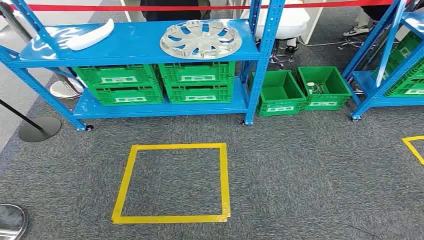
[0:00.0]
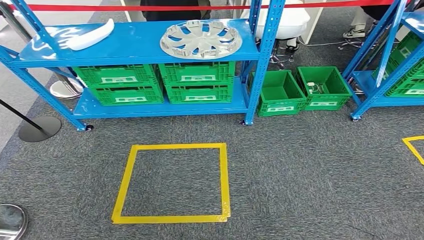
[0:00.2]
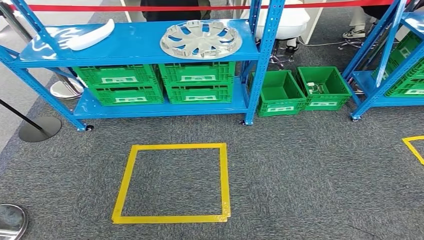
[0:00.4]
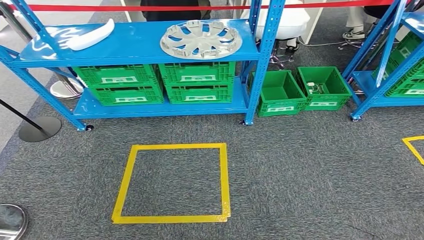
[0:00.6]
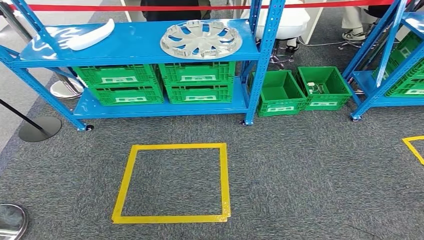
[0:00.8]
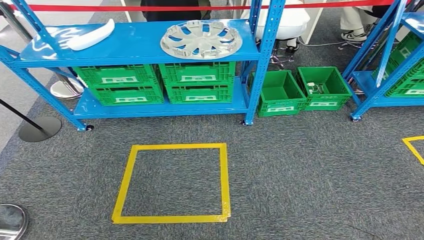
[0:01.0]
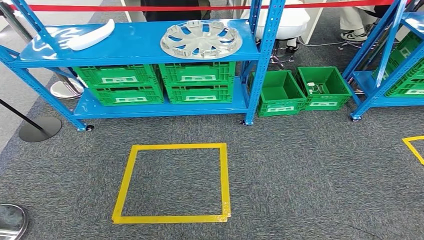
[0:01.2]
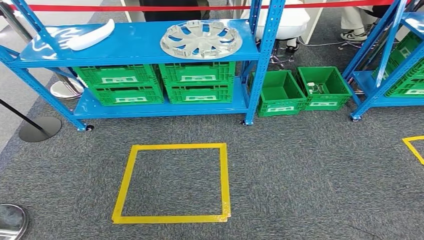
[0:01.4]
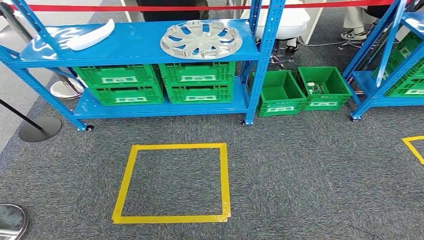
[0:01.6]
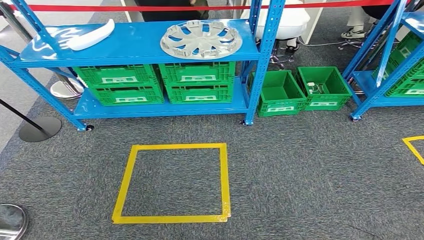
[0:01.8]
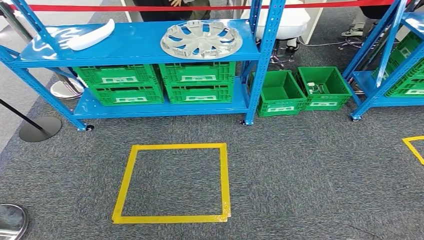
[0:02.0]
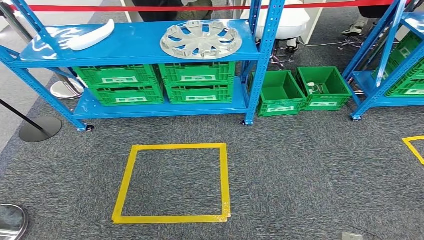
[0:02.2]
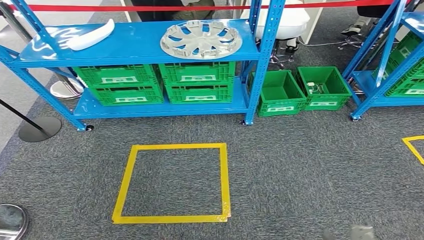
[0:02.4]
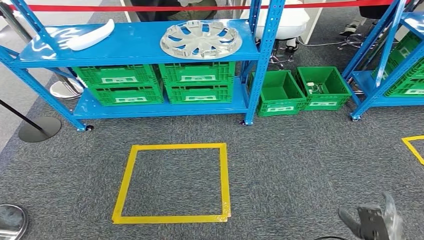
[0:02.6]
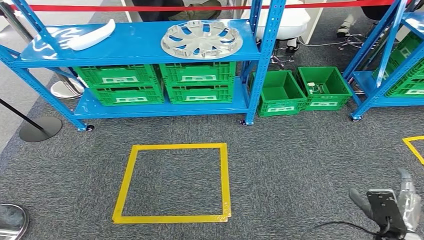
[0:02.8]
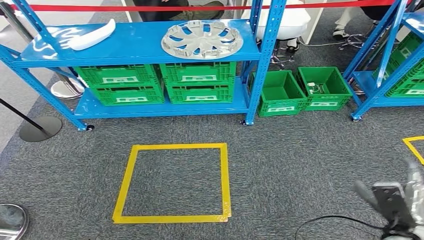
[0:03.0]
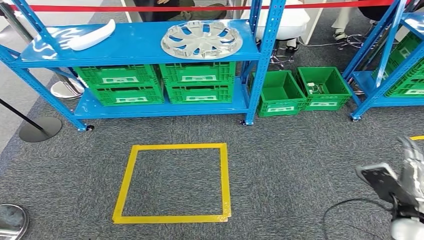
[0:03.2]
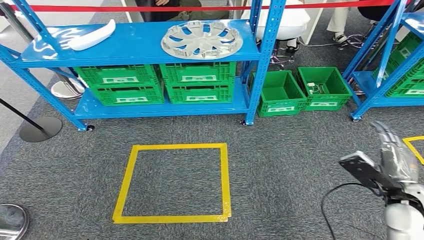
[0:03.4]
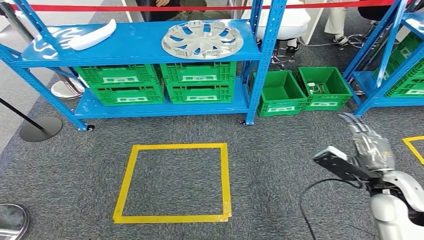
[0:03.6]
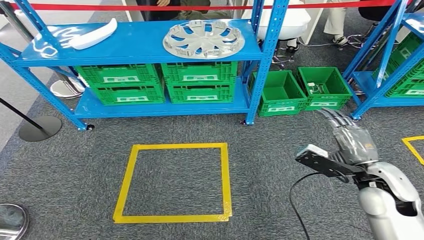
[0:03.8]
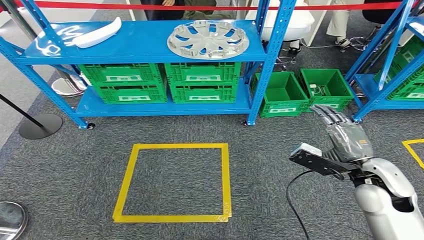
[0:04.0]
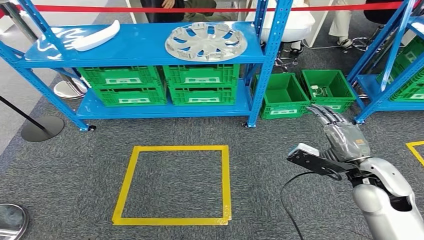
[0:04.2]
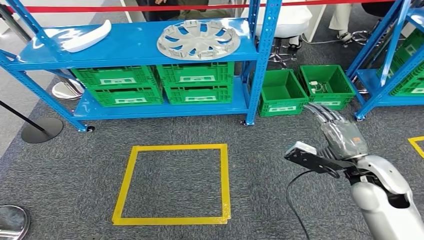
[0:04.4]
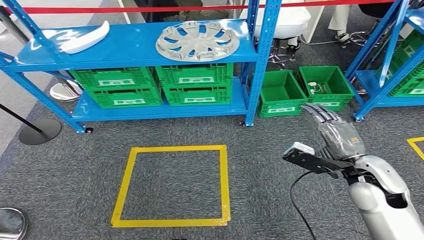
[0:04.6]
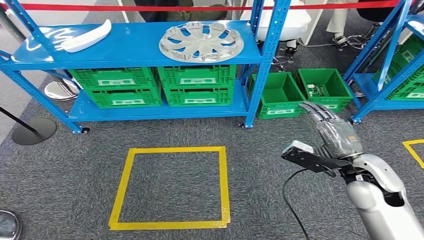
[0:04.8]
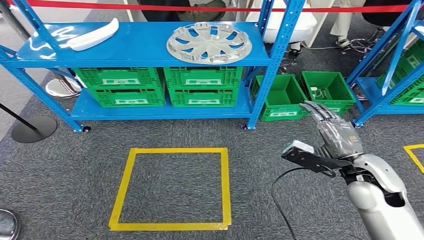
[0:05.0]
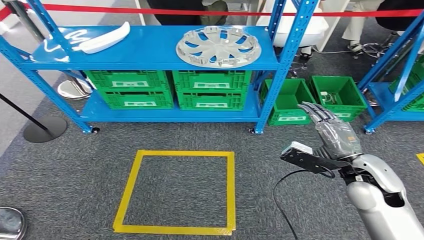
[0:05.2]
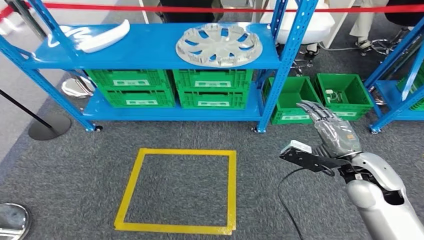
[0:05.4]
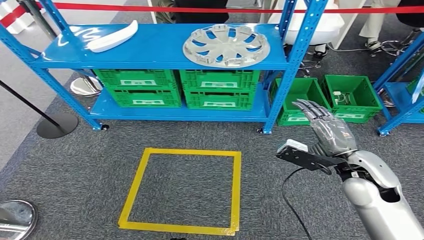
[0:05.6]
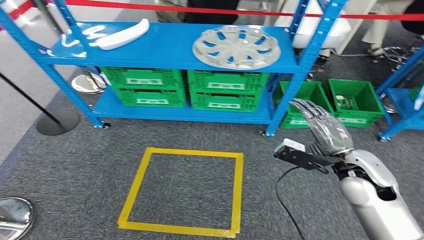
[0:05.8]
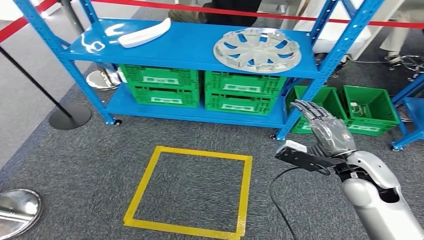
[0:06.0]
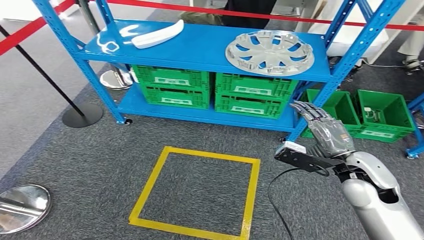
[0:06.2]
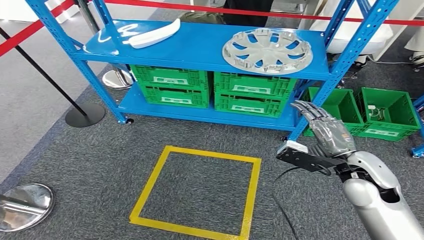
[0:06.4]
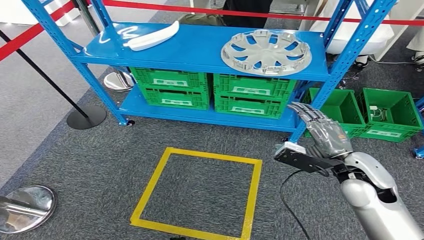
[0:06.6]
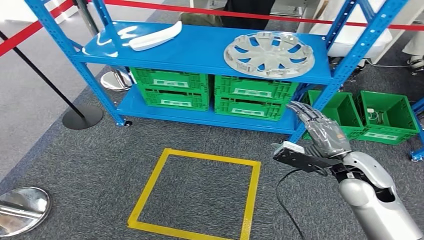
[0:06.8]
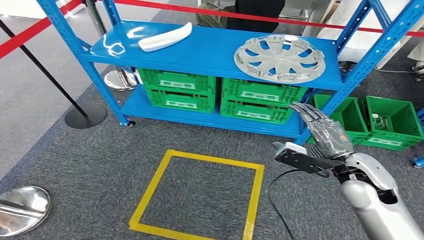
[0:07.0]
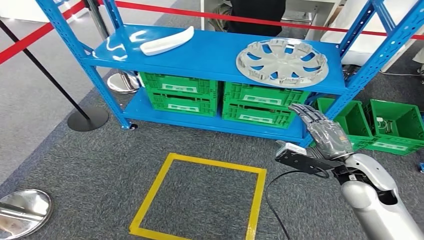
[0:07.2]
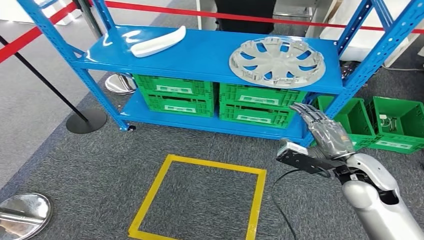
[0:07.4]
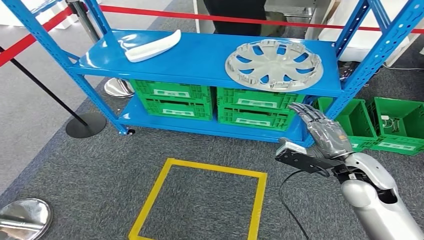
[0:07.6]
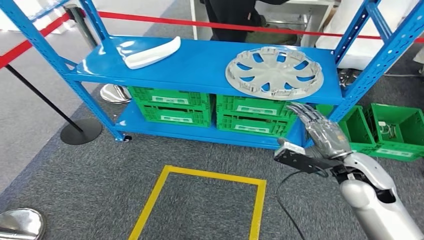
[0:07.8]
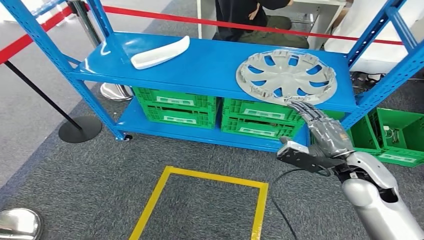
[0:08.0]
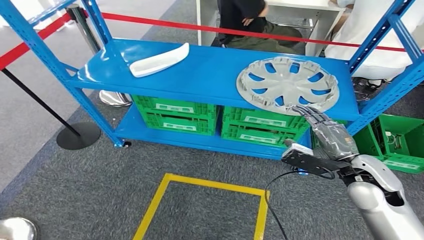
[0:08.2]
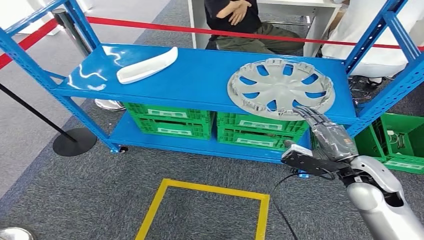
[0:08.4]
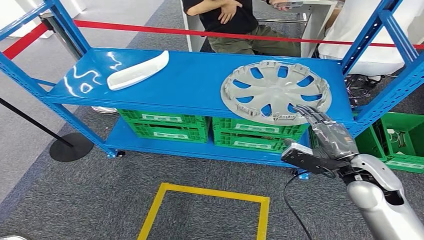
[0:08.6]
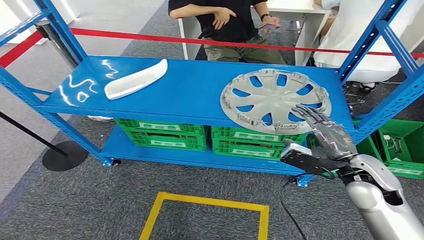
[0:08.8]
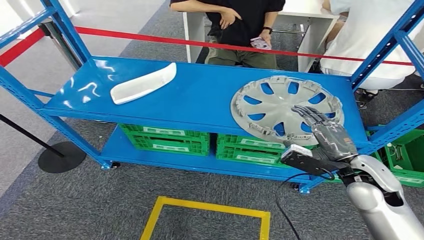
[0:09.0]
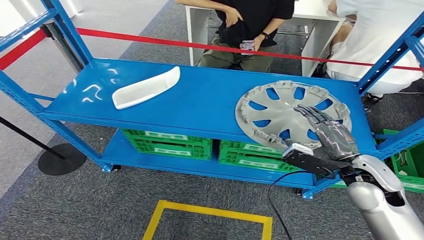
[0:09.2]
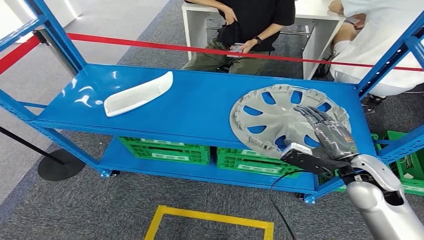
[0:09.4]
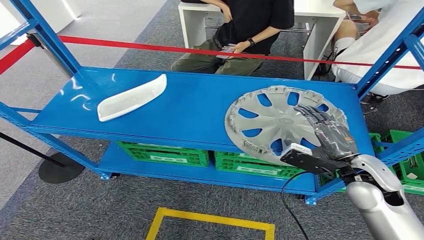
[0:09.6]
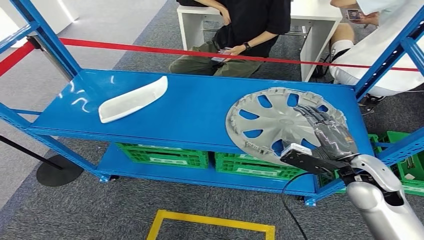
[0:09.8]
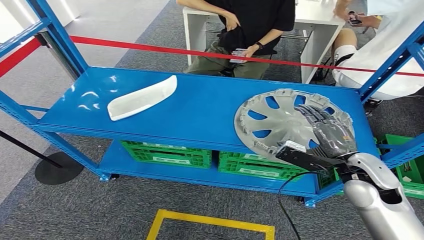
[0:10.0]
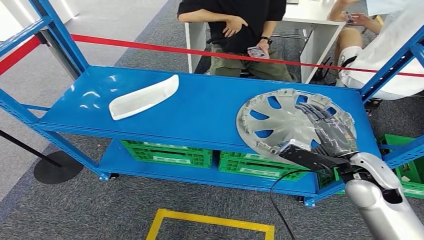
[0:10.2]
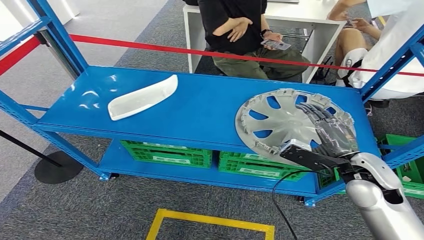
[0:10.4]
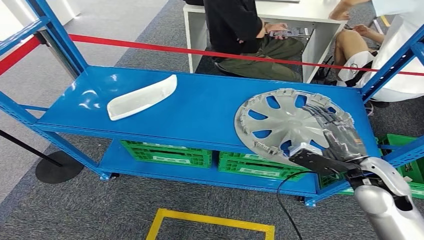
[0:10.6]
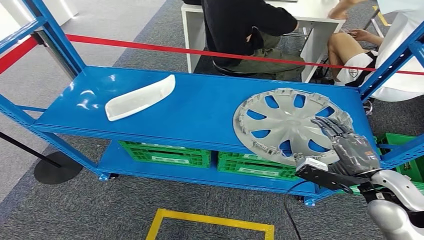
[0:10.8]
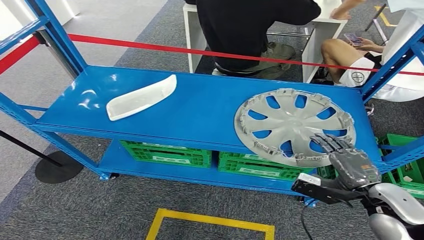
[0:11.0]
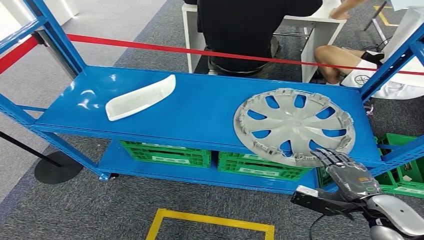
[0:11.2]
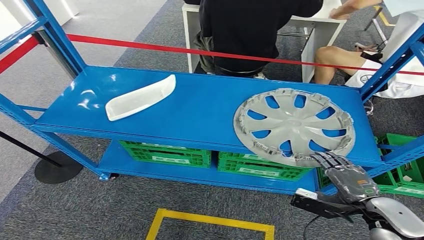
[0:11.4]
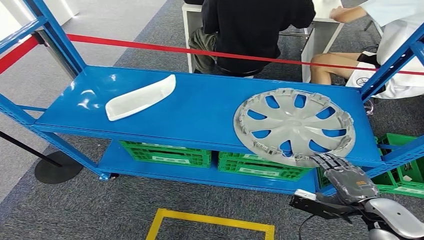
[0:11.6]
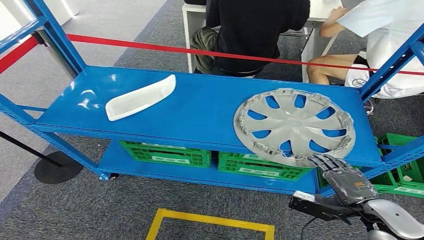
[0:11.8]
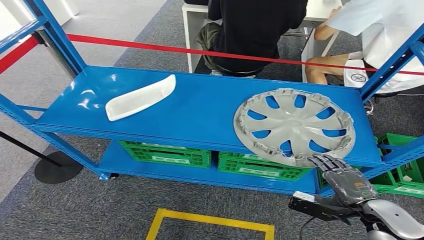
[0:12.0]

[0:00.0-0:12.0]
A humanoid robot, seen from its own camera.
0:01.6 to 0:03.0: The right hand is displaced upward and forward by approximately 25 cm.

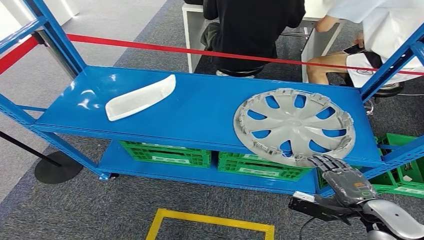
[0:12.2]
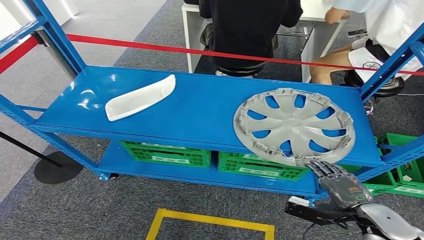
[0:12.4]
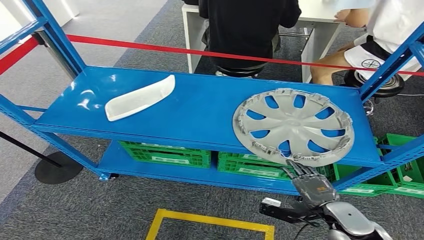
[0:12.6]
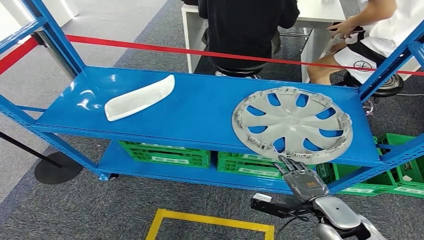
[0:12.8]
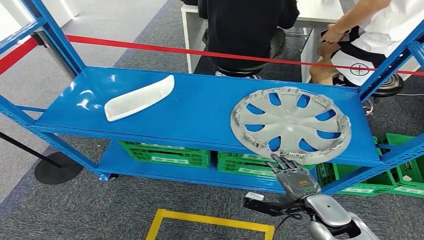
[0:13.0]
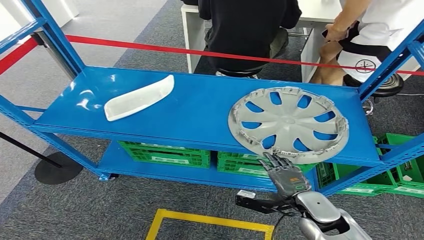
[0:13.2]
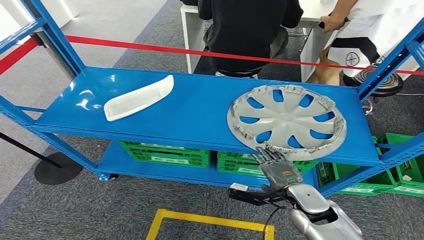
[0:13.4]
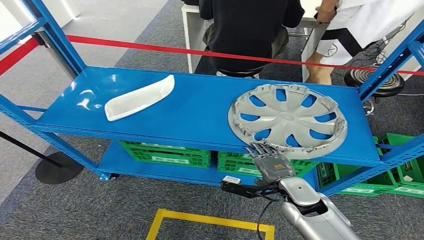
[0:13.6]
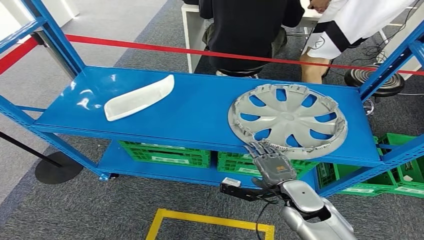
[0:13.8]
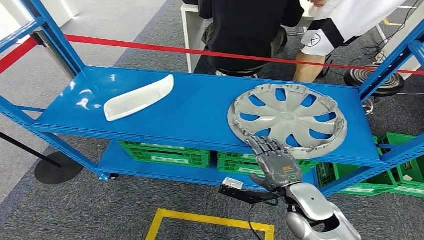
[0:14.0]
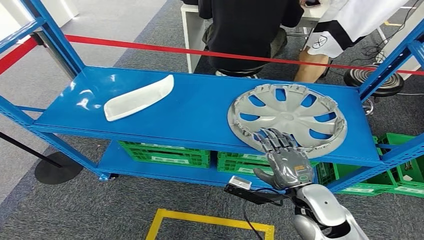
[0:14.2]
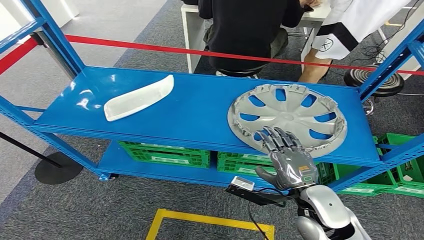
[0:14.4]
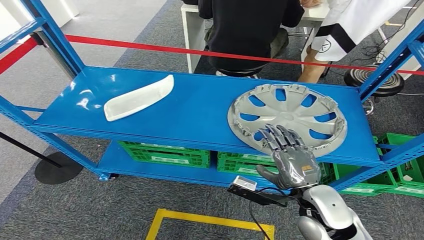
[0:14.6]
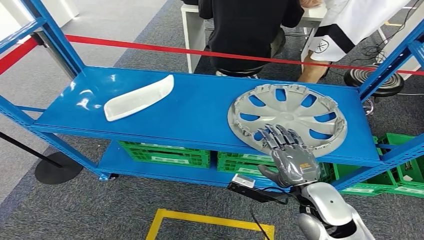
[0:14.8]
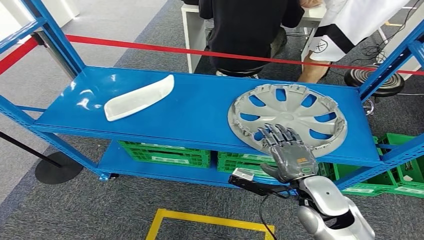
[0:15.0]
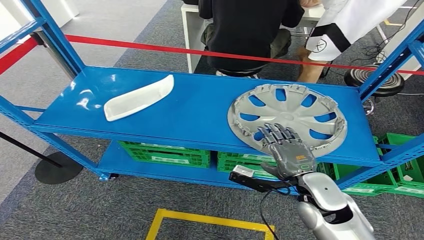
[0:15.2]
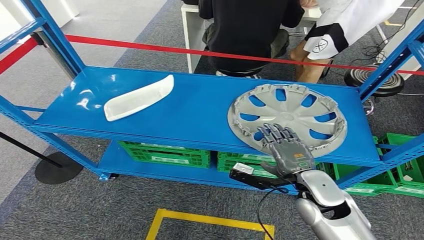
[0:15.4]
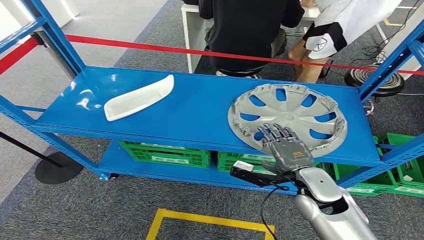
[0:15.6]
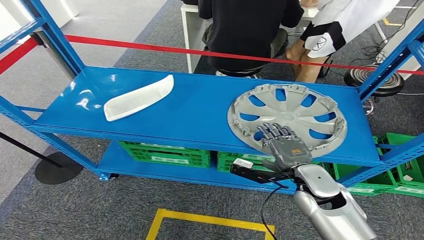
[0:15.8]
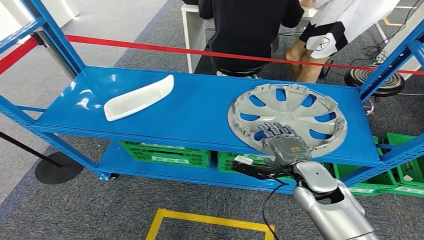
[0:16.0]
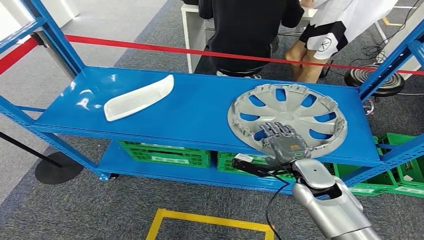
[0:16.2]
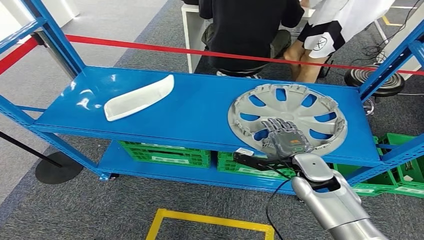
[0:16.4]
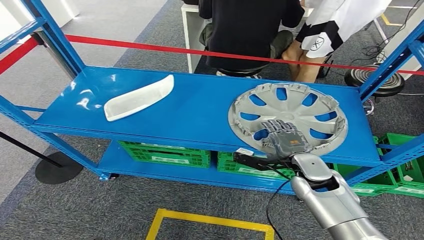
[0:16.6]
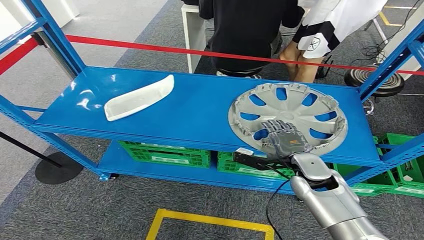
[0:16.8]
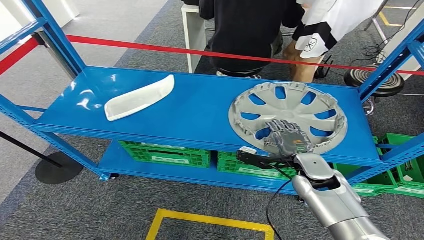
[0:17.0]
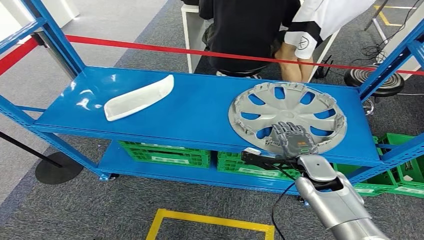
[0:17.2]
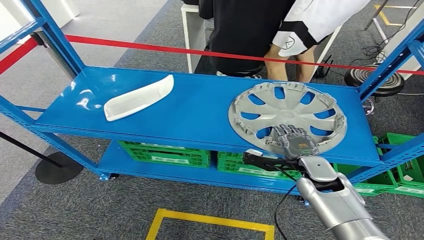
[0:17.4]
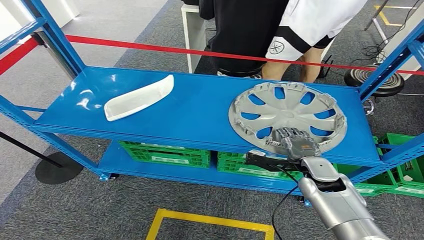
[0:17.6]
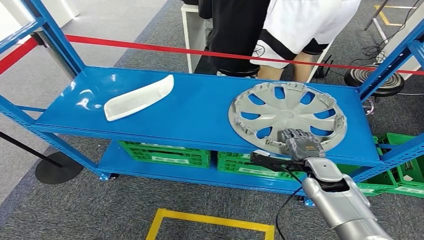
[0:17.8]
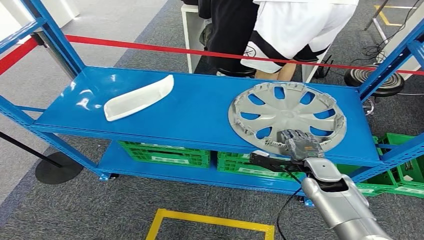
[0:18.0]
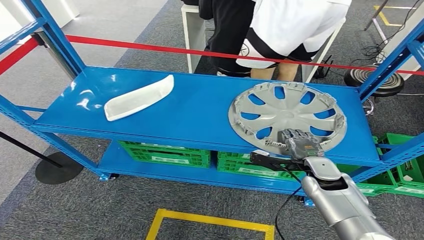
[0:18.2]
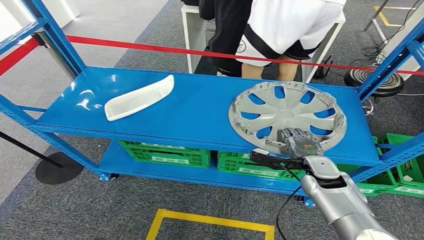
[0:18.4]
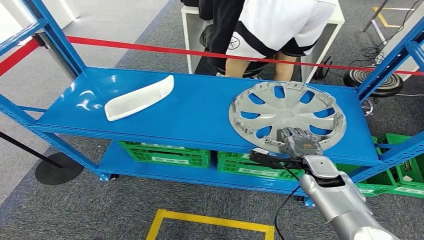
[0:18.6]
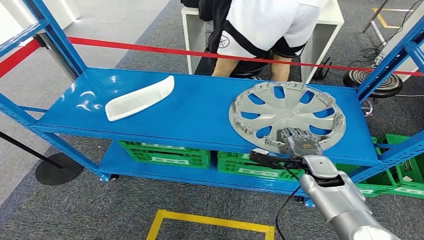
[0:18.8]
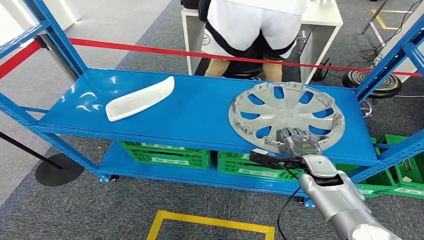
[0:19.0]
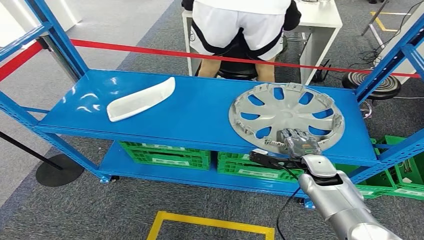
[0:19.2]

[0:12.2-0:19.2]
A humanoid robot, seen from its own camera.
0:13.6 to 0:15.0: The right hand goes roughly 10 cm upward.
0:15.0 to 0:16.4: The right hand shifts roughly 10 cm forward.
0:16.4 to 0:17.8: The hands stay close to where they were, moving slightly.
